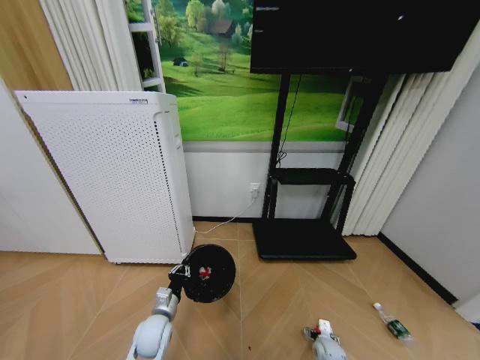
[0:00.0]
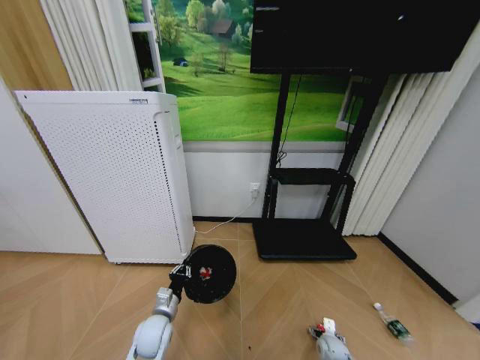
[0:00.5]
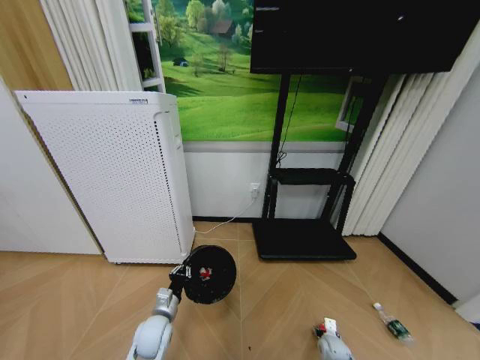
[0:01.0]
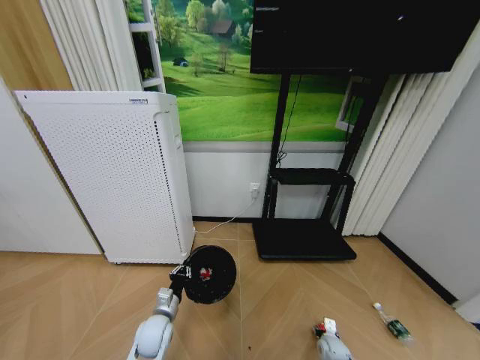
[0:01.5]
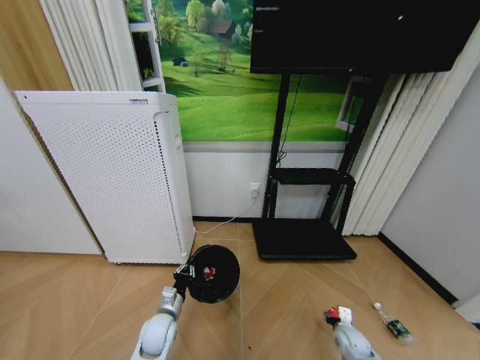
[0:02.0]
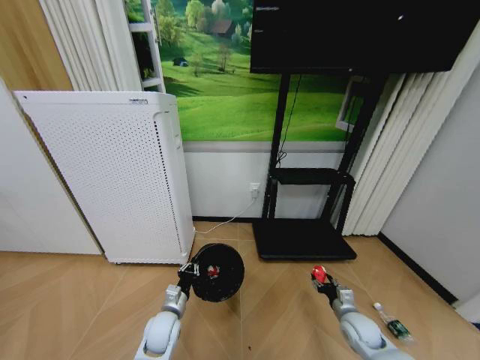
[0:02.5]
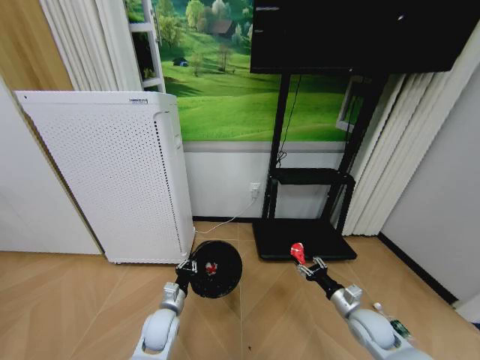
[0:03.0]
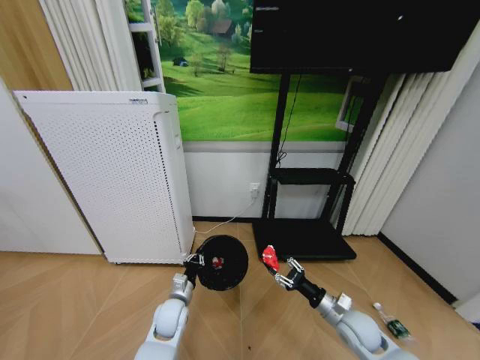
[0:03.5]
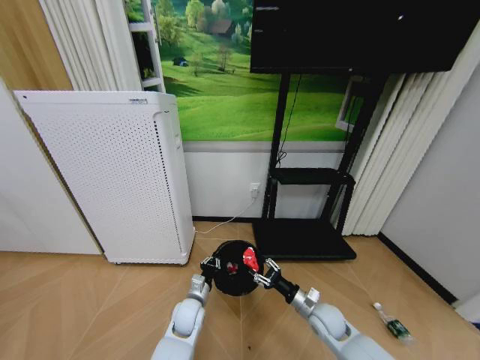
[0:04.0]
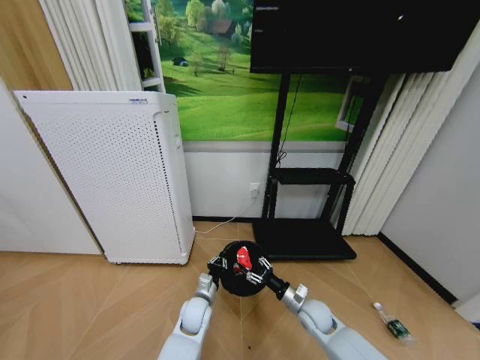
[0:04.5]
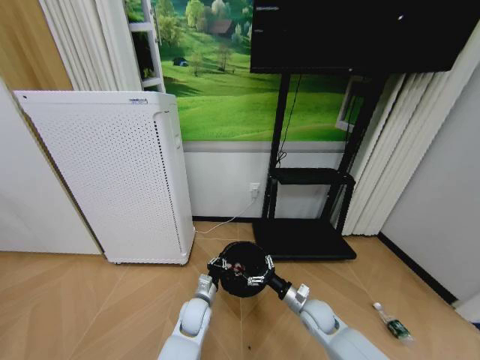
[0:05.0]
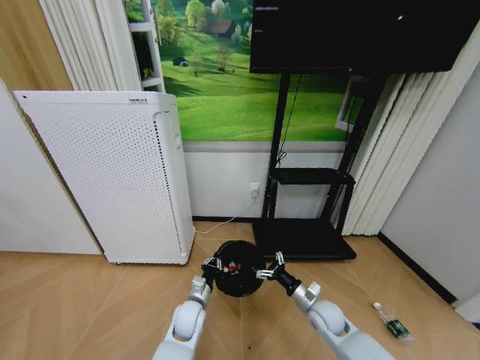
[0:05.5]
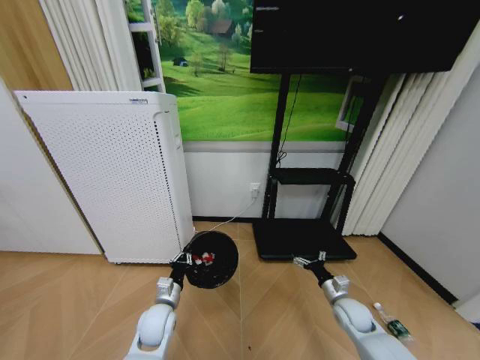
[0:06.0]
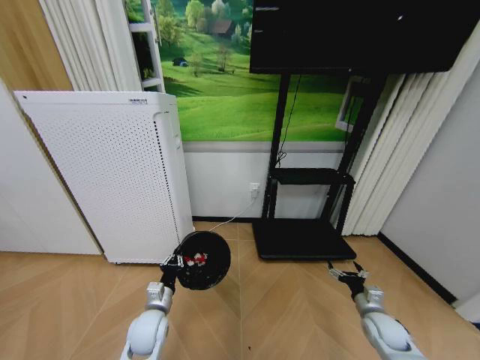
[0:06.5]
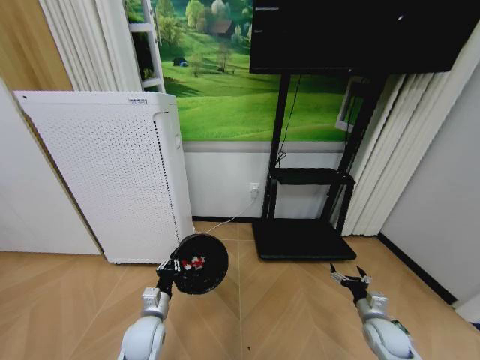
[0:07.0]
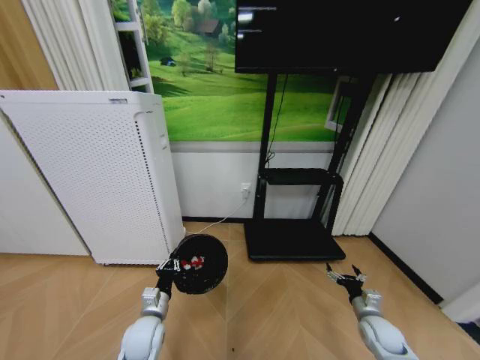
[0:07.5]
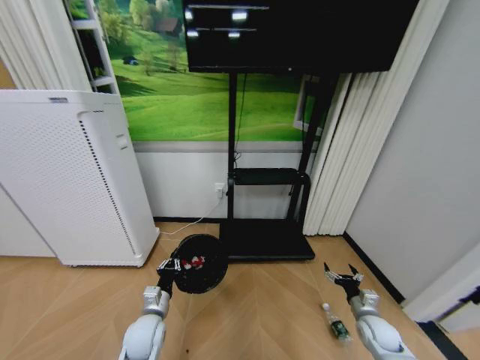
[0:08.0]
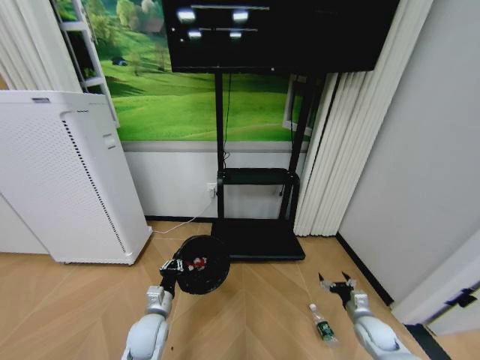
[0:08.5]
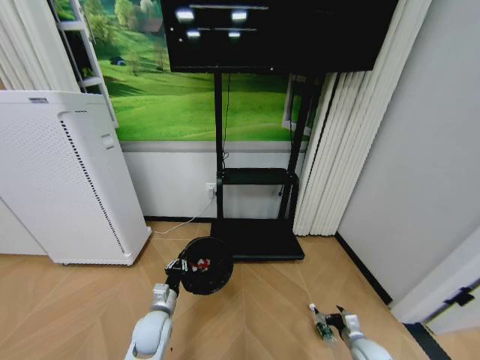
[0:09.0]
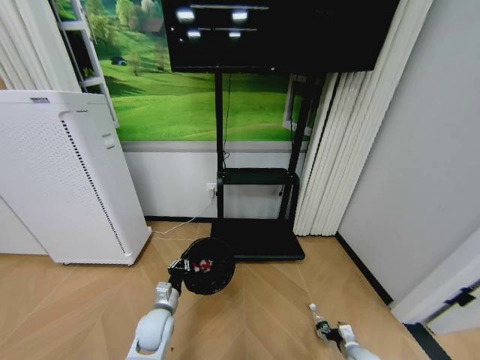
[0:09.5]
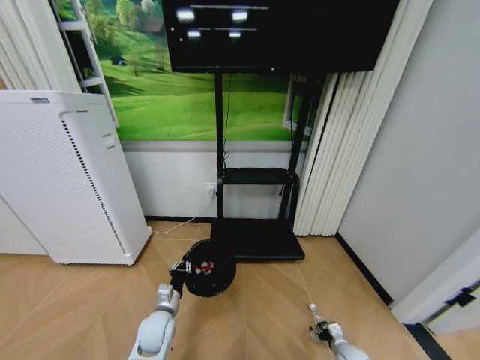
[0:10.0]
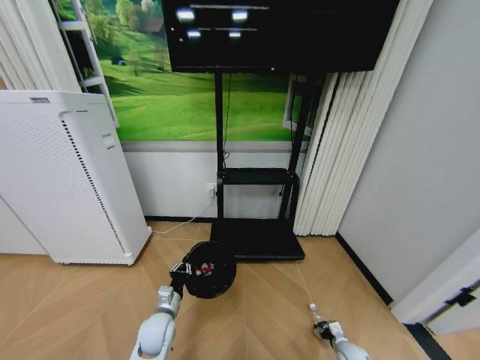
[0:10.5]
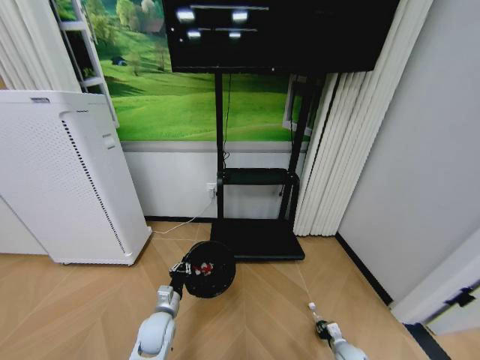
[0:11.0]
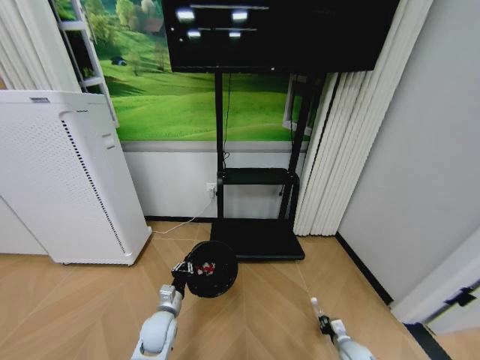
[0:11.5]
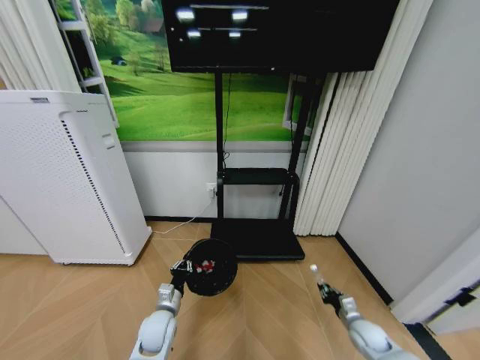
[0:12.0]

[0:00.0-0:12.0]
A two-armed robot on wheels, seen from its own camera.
Task of the whole recording: Pick up the trash bin and place the garbage on the floor into it.
0:00.0 to 0:02.0: The right gripper shifts about 10 cm upward, and closes its fingers.
0:02.0 to 0:04.0: The right gripper is displaced upward and to the left by about 15 cm, while the left gripper moves to the right, about 10 cm.
0:04.0 to 0:06.0: The left gripper heads to the left, covering some 5 cm. Meanwhile the right gripper heads to the right, covering approximately 10 cm, and opens up.
0:06.0 to 0:08.0: The right gripper goes some 5 cm to the right.
0:08.0 to 0:10.0: The right gripper is displaced downward by some 15 cm.
0:10.0 to 0:12.0: The right gripper moves upward, approximately 10 cm, and closes up.

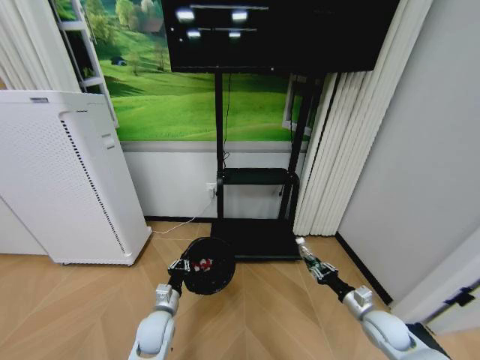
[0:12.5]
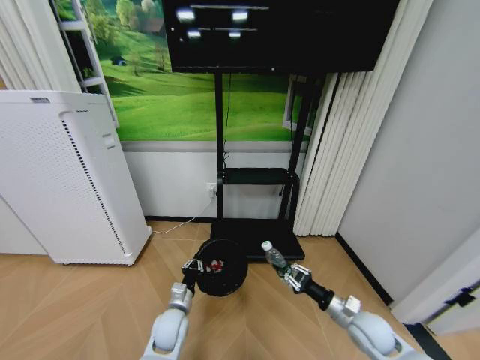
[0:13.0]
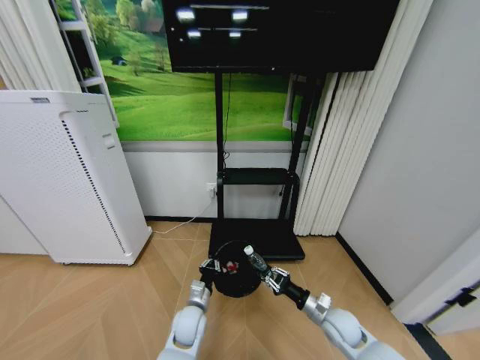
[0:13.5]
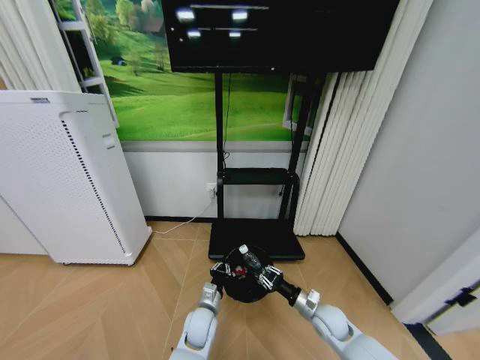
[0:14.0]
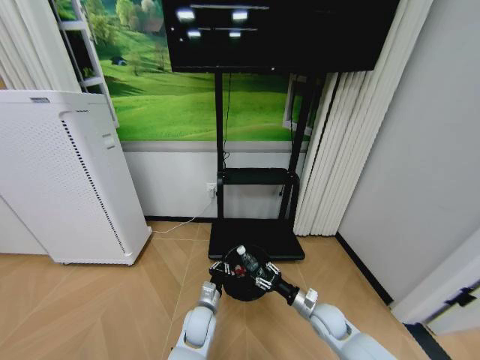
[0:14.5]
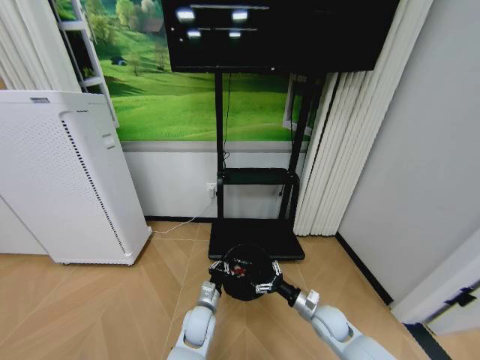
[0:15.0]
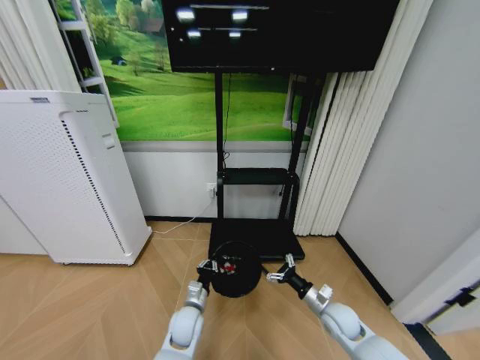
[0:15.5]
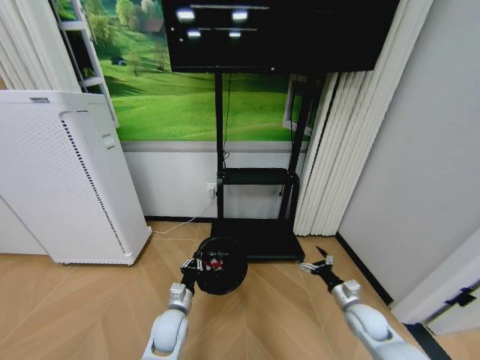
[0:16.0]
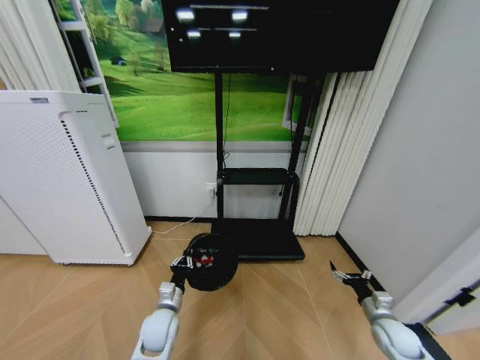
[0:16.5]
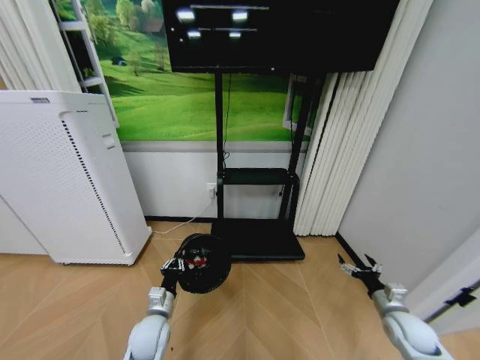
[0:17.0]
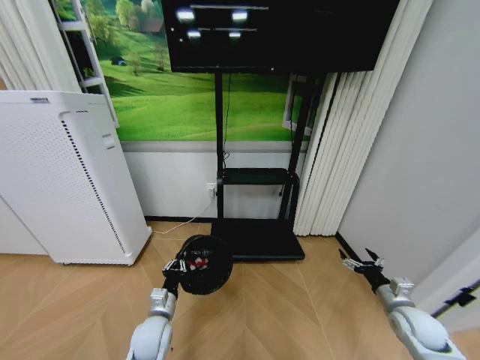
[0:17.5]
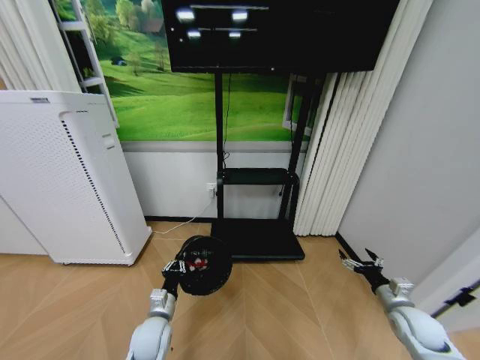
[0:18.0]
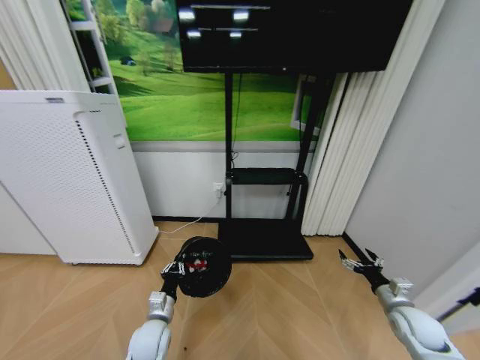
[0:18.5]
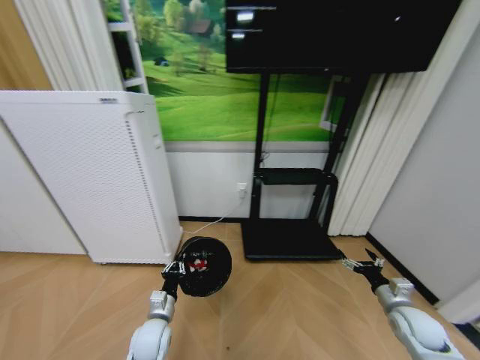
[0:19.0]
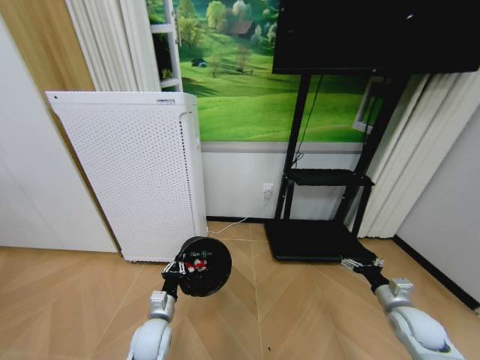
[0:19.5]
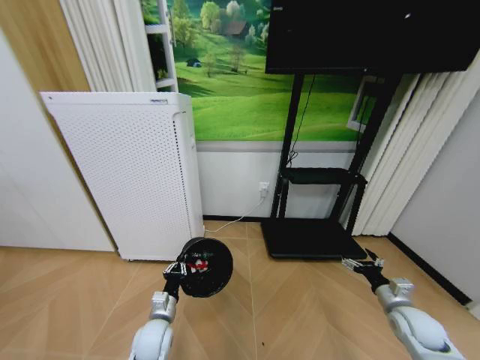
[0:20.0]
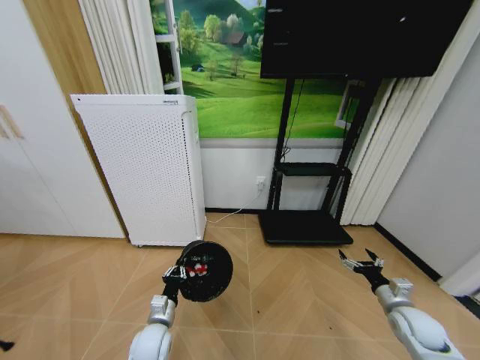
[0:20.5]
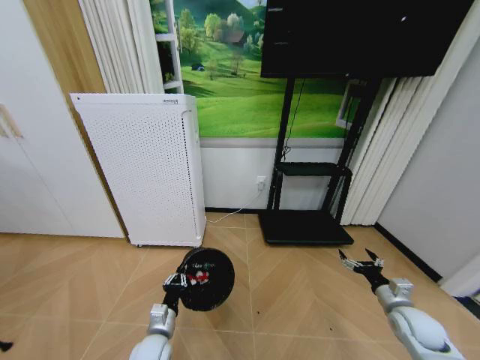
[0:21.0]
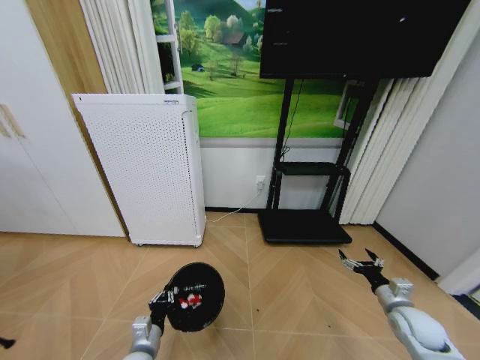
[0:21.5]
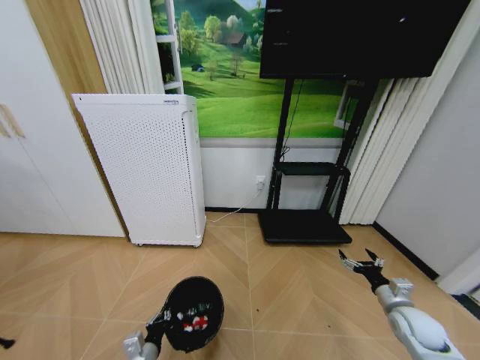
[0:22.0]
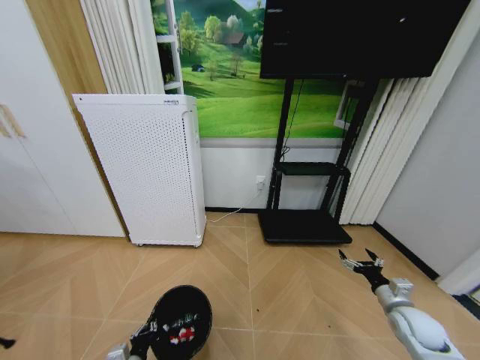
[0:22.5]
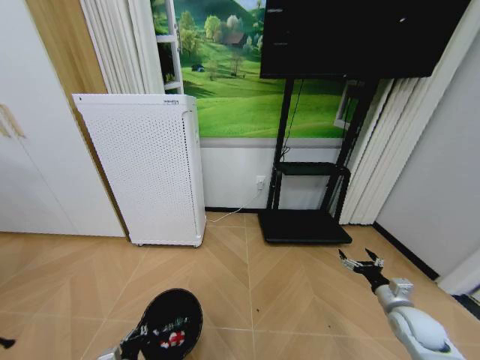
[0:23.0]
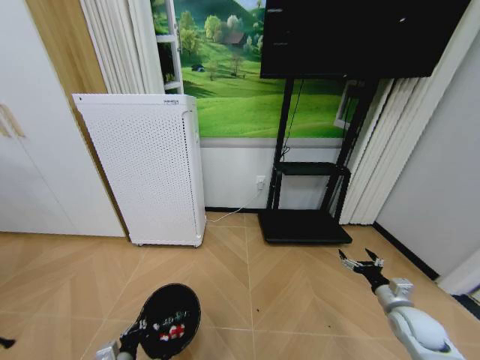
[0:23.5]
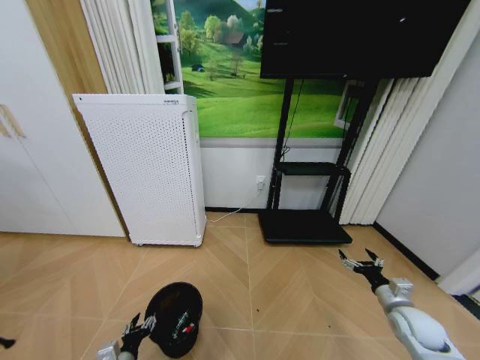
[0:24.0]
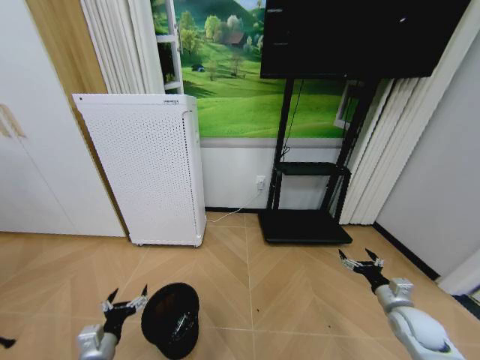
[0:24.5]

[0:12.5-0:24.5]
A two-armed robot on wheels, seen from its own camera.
Task of the whole recording: Pick up the trash bin and place the garbage on the floor into it.
0:12.5 to 0:14.5: The right gripper moves to the left, roughly 15 cm, and opens. The left gripper is displaced to the right by about 10 cm.
0:14.5 to 0:16.5: The left gripper moves to the left, roughly 10 cm. Meanwhile the right gripper shifts roughly 20 cm to the right, and opens its fingers.
0:16.5 to 0:18.5: The right gripper goes approximately 5 cm upward.
0:20.5 to 0:22.5: The left gripper is displaced backward and to the left by some 10 cm.
0:22.5 to 0:24.5: The left gripper shifts about 10 cm to the left and upward, and opens its fingers.

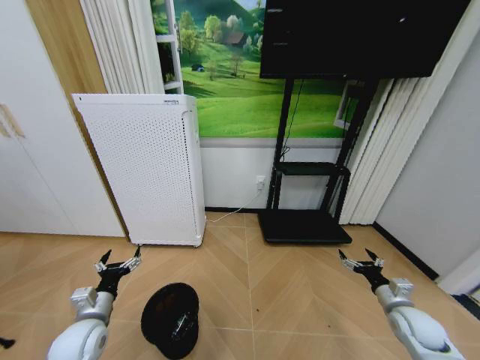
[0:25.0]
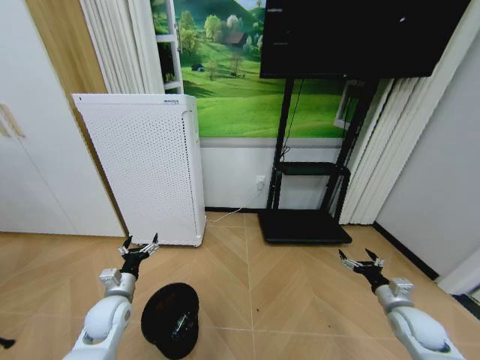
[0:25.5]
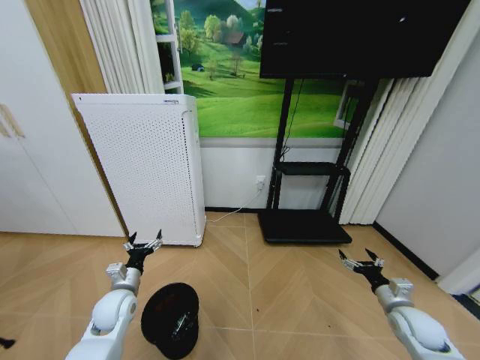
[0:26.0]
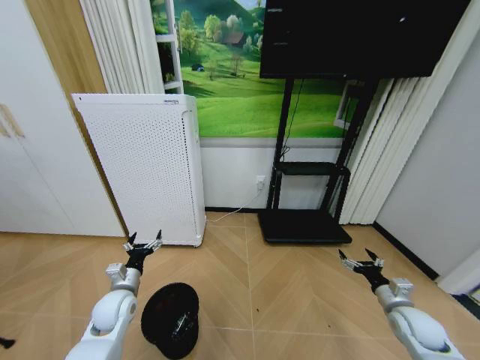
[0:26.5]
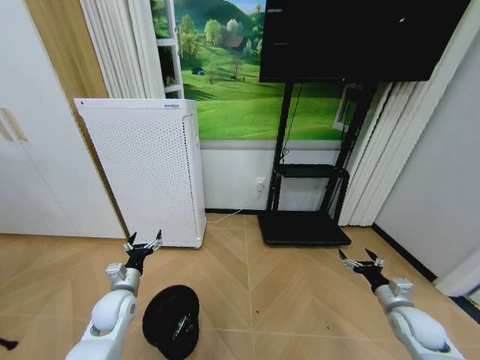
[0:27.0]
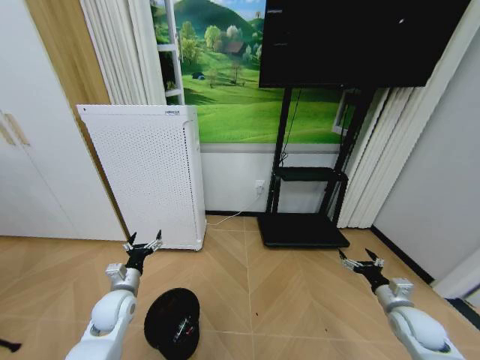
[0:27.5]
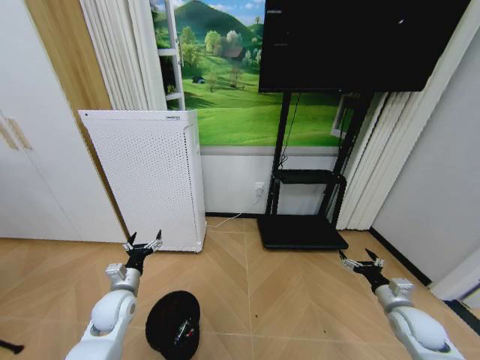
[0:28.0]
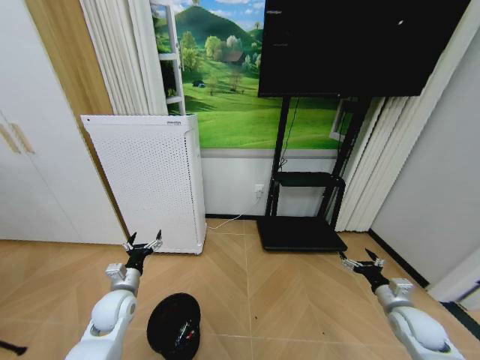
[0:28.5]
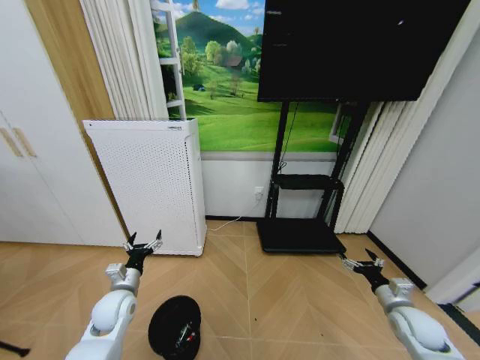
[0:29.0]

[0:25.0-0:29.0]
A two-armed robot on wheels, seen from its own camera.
Task of the whole recording: Pick up the trash bin and place the garbage on the floor into it.
0:25.0 to 0:27.0: The left gripper goes roughly 5 cm forward.
0:27.0 to 0:29.0: Both grippers stay about where they are.
